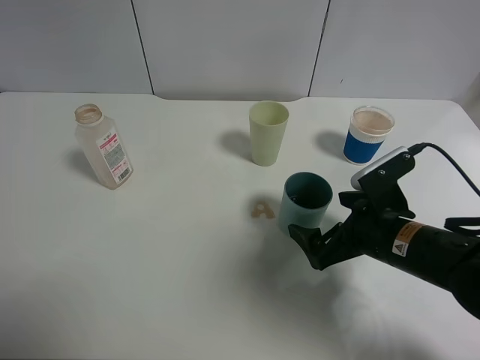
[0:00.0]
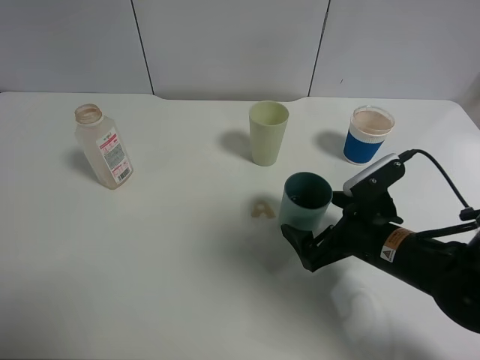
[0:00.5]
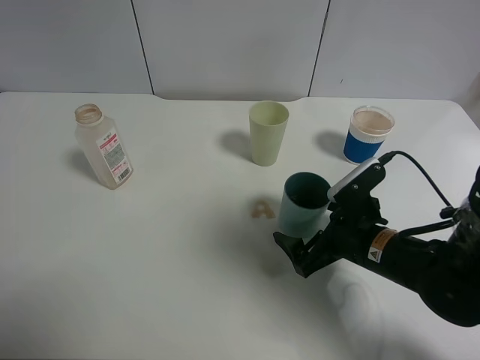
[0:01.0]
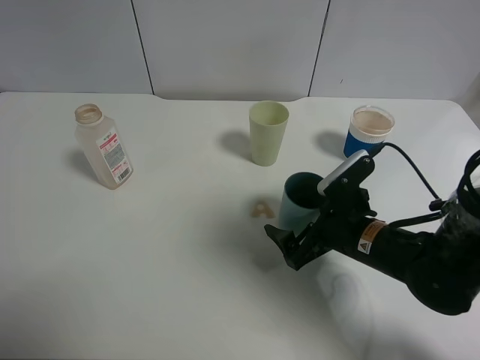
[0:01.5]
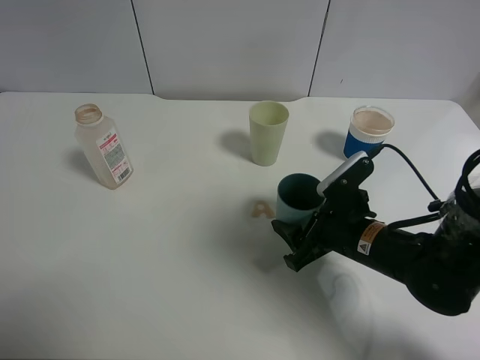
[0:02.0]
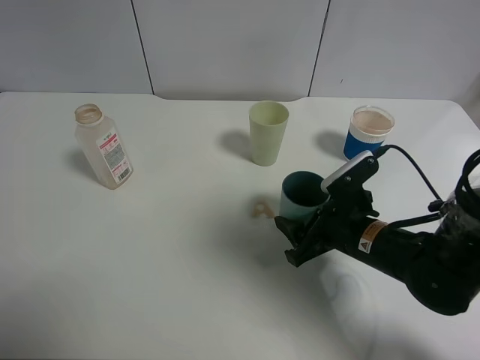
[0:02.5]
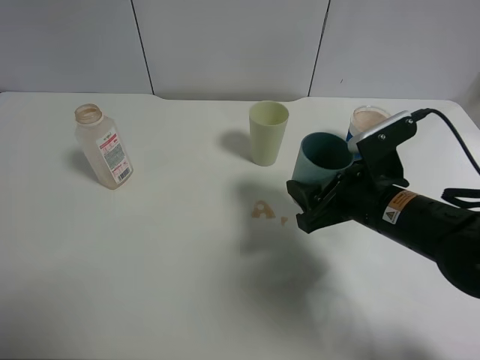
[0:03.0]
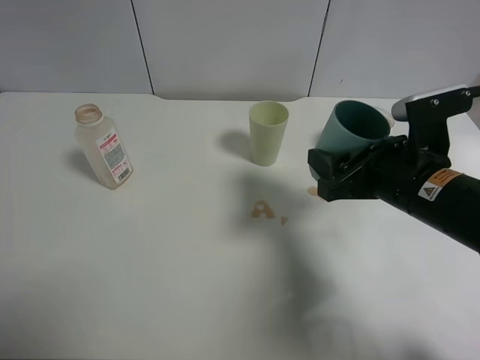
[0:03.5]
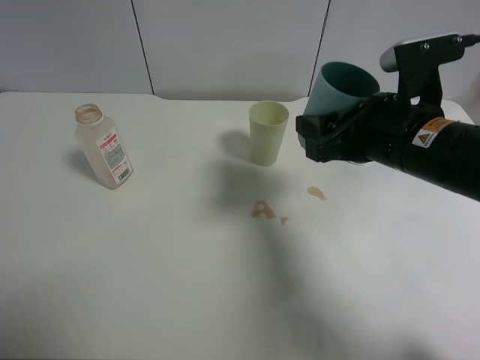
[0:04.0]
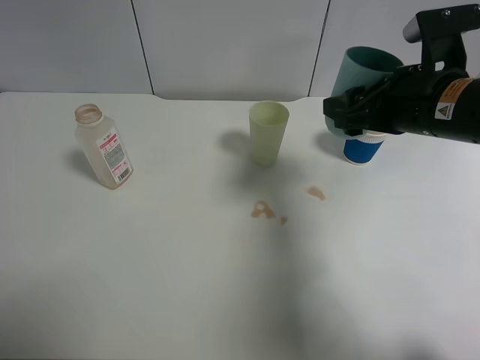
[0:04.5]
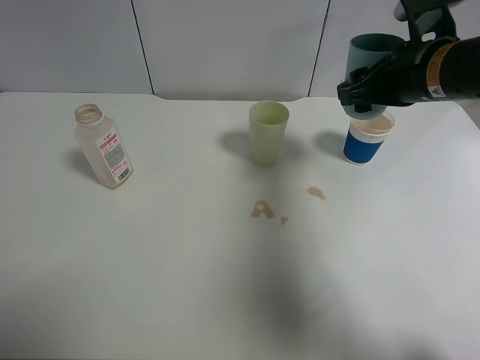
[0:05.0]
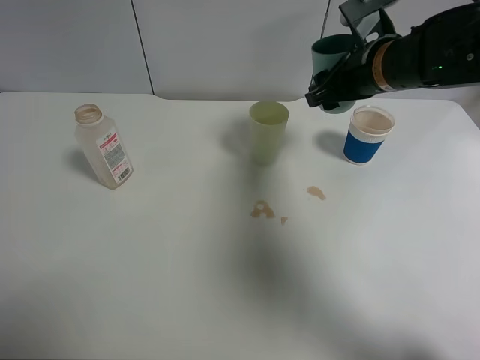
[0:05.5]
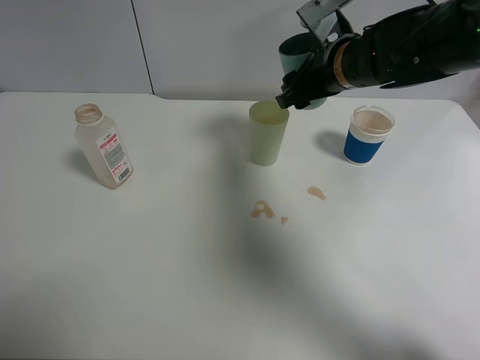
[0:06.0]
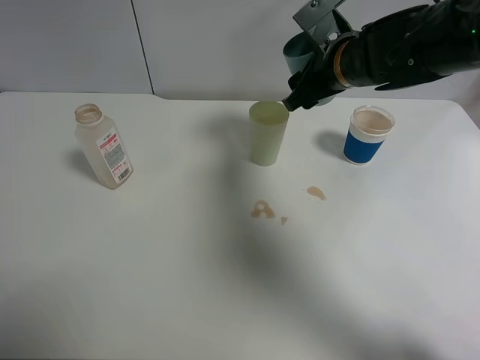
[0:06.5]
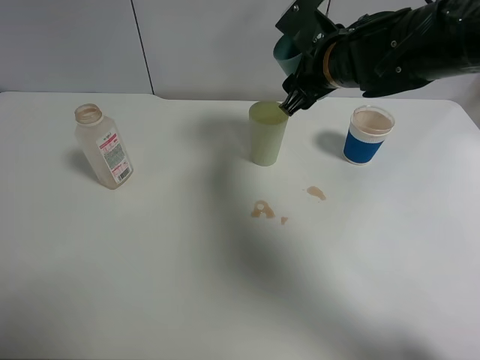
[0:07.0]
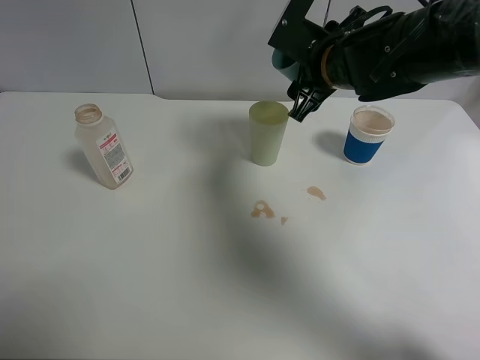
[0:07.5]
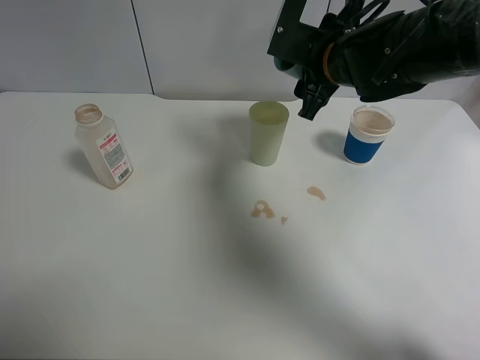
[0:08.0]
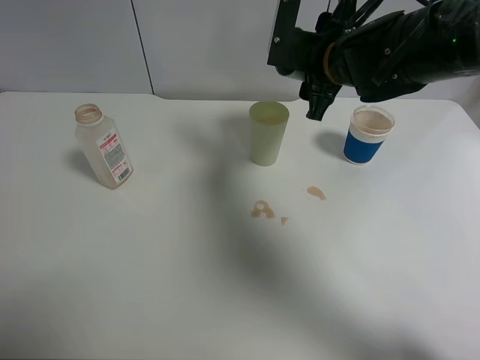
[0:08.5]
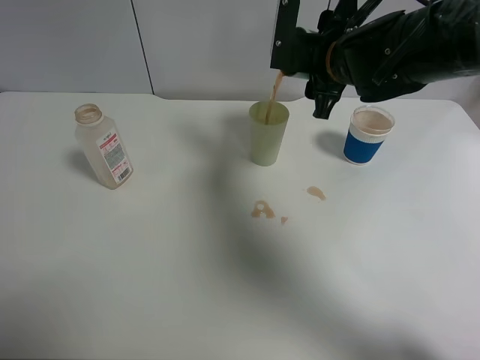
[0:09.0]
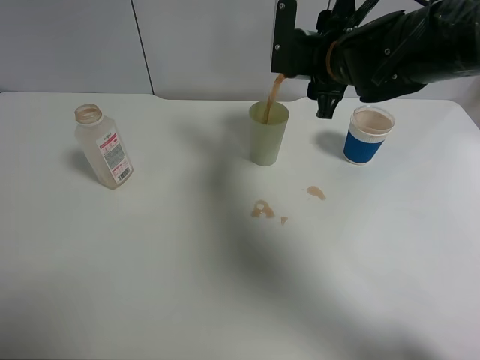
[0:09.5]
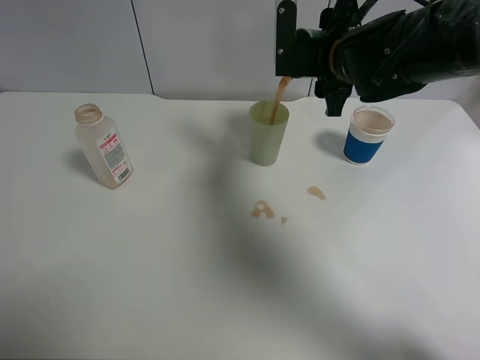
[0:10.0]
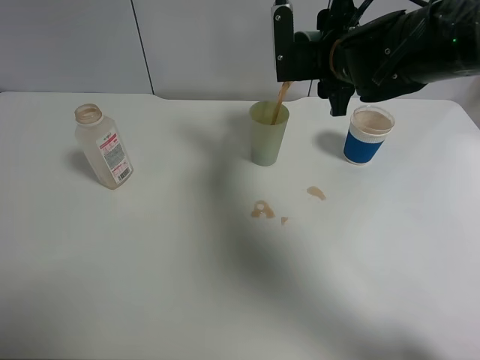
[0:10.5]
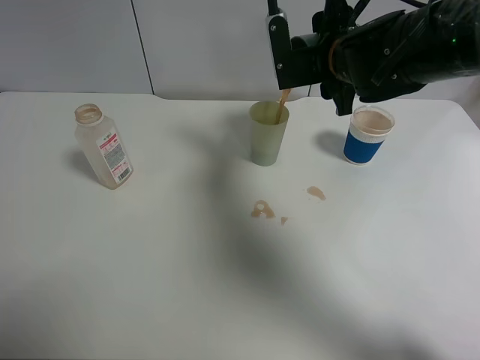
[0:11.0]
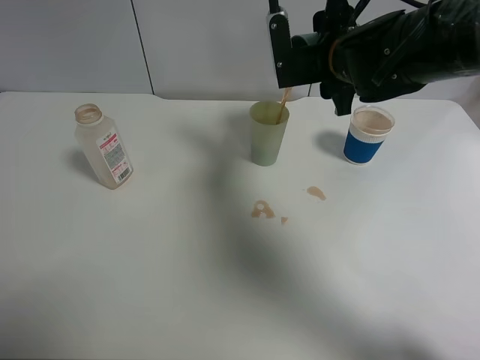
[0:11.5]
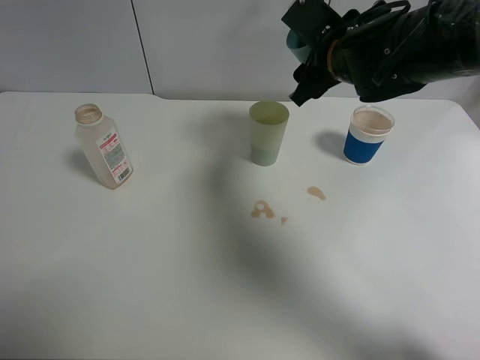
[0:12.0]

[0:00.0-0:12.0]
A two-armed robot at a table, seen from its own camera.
Task of the whole recording: use a clamp to hold the bottle of the drink, pour the beverage into a random cup, then clamp the cup containing the drink and pour the drink into another random cup.
Step, 0:00.0 to 0:03.0: Pick up the blue plastic cup bottle with right gripper.
Step, 0:03.5 to 0:12.0: Pour the drink into the green plastic cup with right gripper.
0:00.0 to 0:02.0: The right gripper closes up.
0:02.0 to 0:04.0: The right gripper heads upward, covering approximately 15 cm.
0:04.0 to 0:06.0: The right gripper heads forward, covering roughly 15 cm.

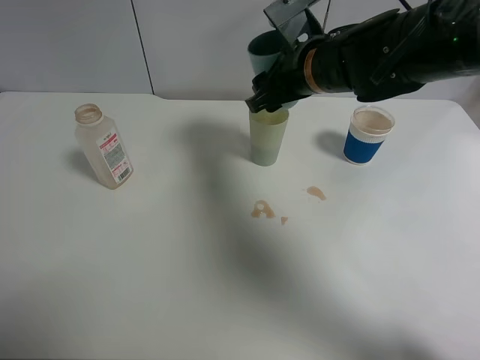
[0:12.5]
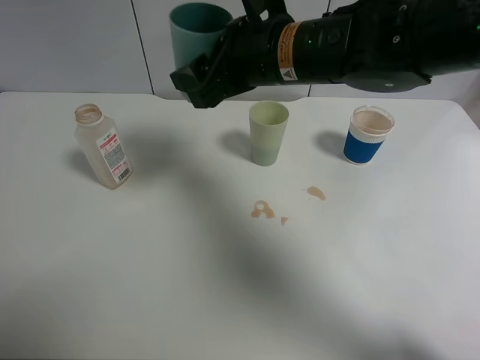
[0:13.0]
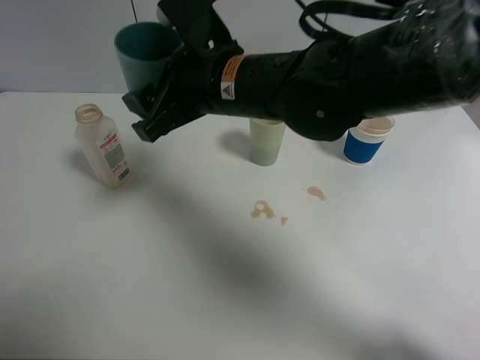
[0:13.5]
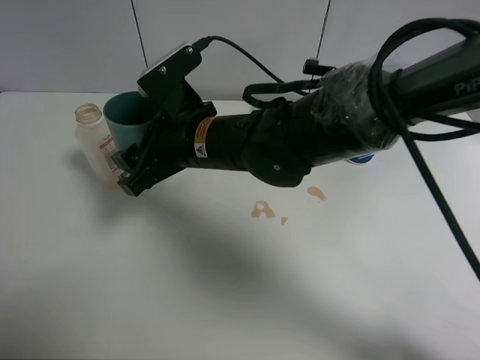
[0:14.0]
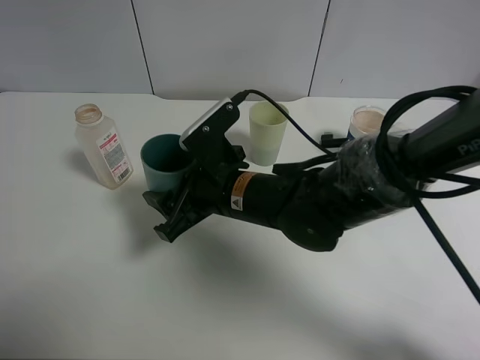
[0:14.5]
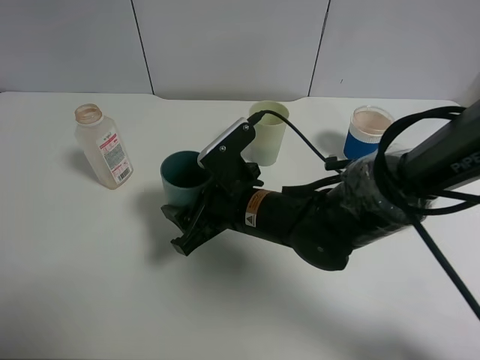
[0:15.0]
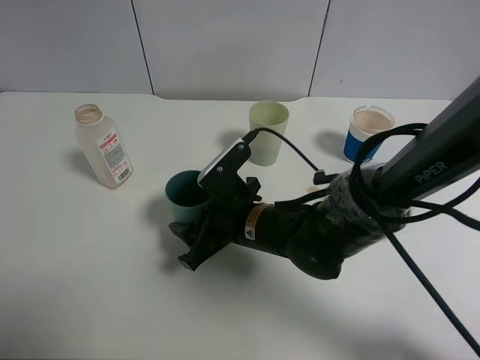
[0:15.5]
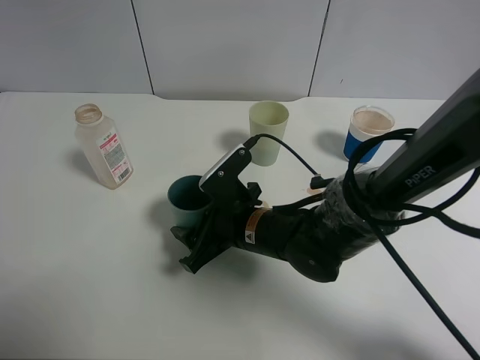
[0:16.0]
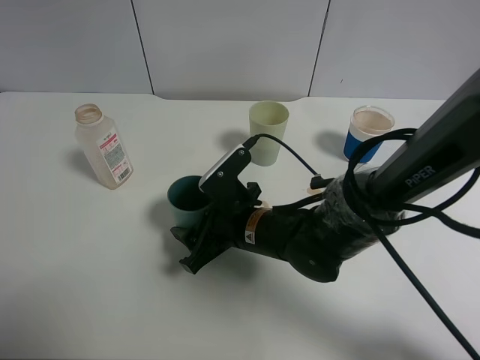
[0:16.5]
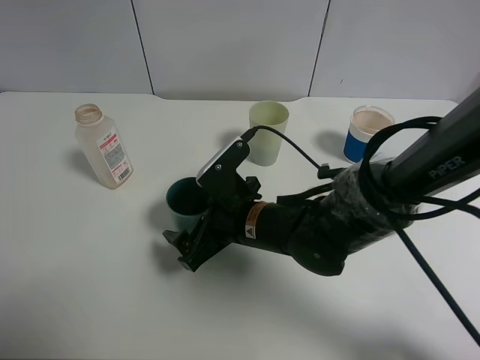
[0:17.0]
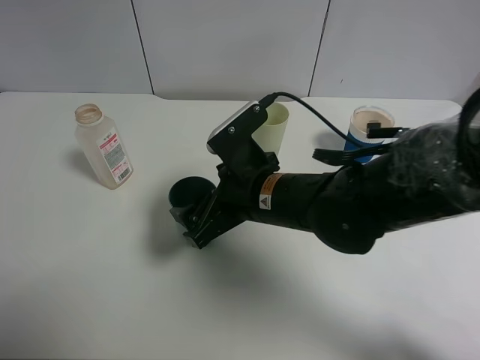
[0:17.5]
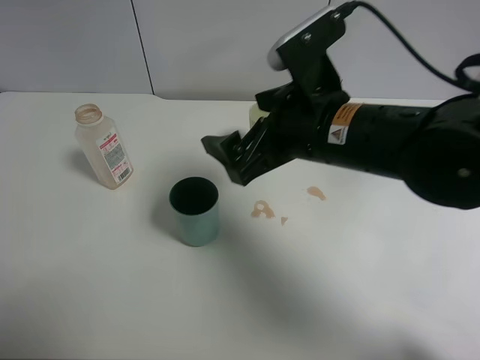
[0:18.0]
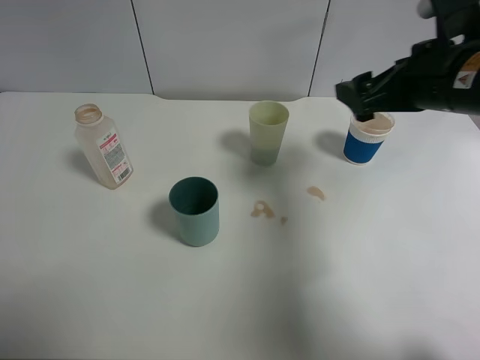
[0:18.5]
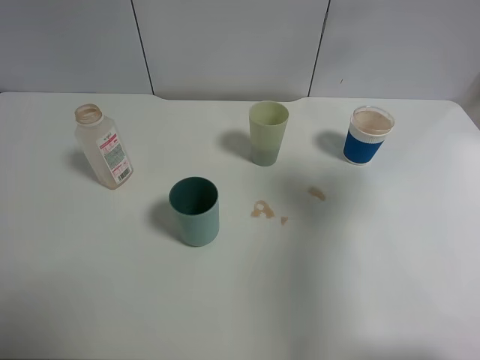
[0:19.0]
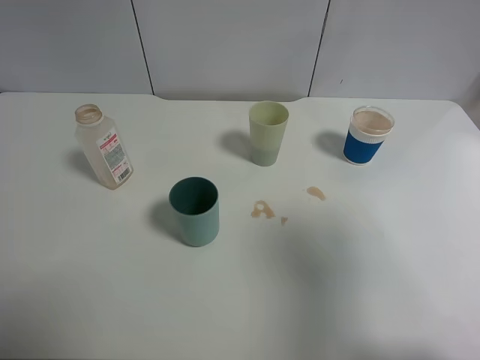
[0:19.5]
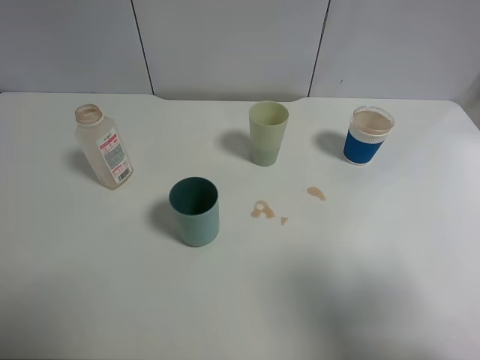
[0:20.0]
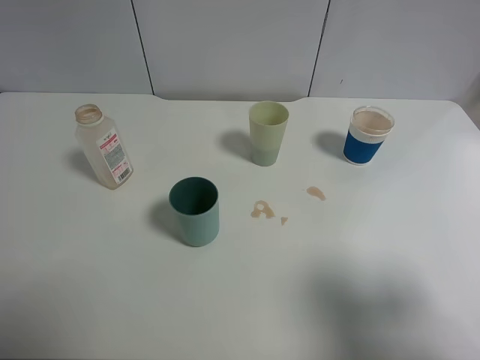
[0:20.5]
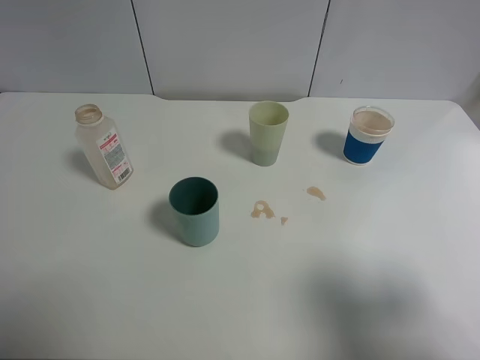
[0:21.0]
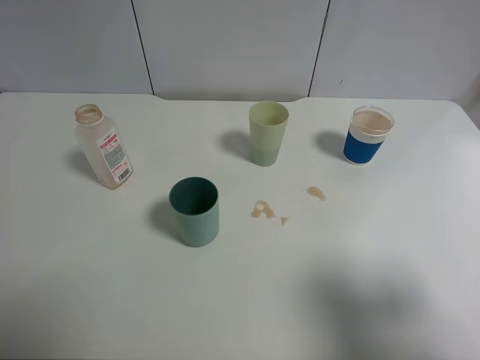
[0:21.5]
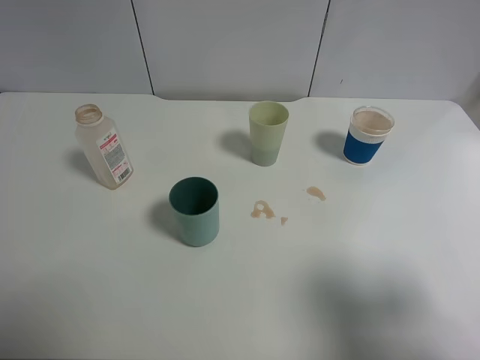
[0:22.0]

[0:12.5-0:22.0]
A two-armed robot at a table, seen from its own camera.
Task of the whole recording: use a clamp to hold the bottle of the drink, pour the beverage into a random cup, then clamp the cup containing the drink and pour the drink into another random cup.
Step, 0:12.5 to 0:17.5: Place the blue plastic cup on the table with right gripper.
0:12.5 to 0:14.5: The right gripper goes about 15 cm backward, downward and to the left.
0:14.5 to 0:16.5: The right gripper goes approximately 5 cm downward.
0:16.5 to 0:18.0: The right gripper is displaced upward and to the right by about 15 cm, and opens its fingers.
0:18.0 to 0:20.0: The right gripper shifts about 30 cm backward and to the right.
